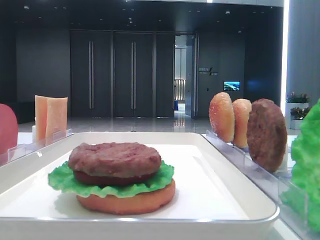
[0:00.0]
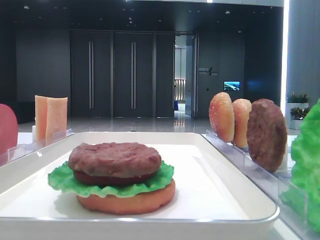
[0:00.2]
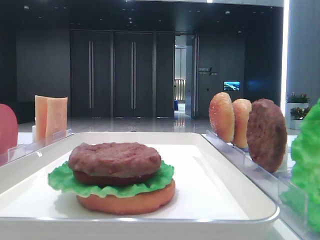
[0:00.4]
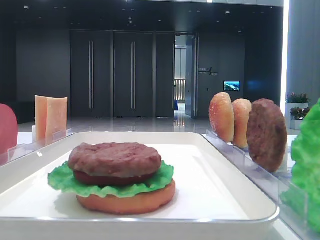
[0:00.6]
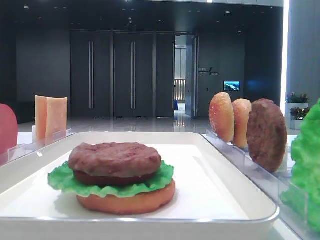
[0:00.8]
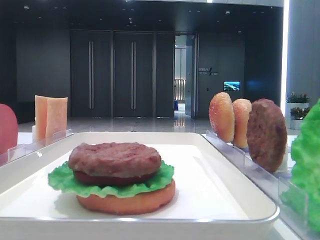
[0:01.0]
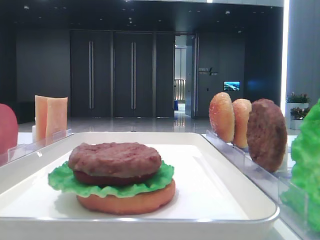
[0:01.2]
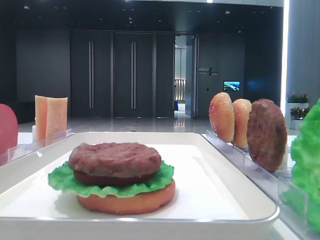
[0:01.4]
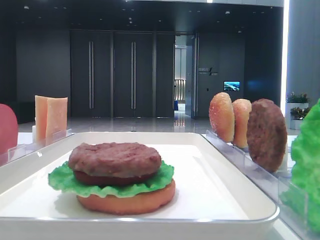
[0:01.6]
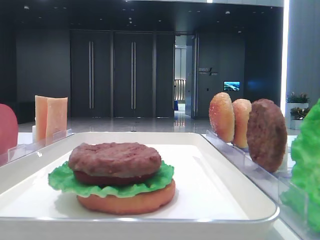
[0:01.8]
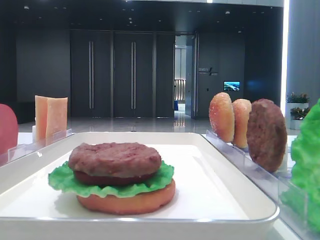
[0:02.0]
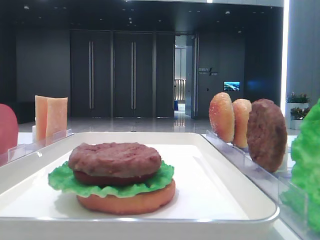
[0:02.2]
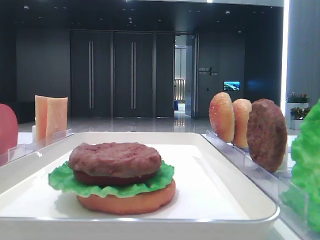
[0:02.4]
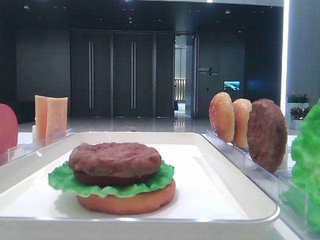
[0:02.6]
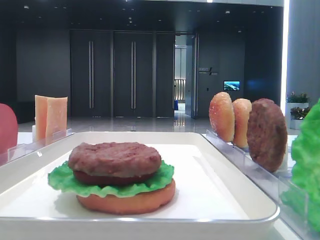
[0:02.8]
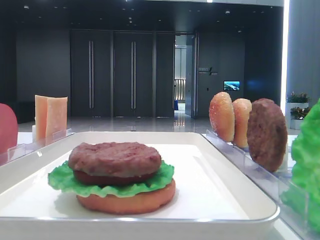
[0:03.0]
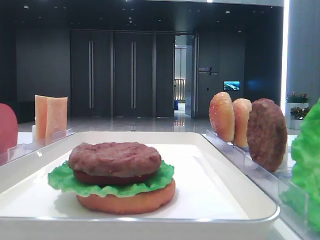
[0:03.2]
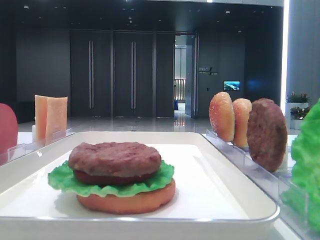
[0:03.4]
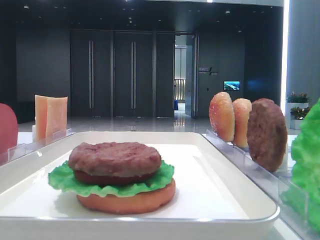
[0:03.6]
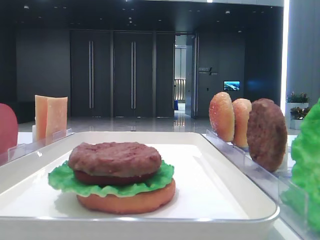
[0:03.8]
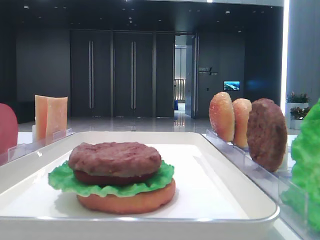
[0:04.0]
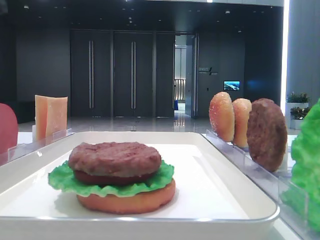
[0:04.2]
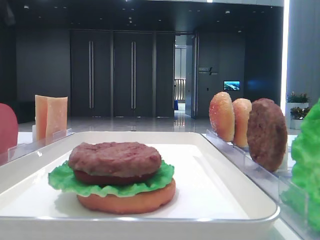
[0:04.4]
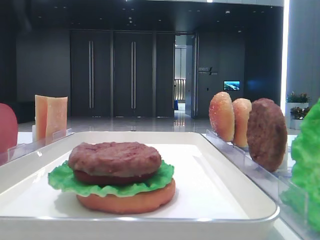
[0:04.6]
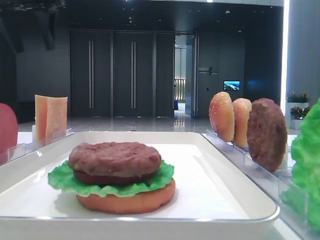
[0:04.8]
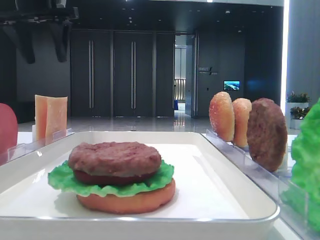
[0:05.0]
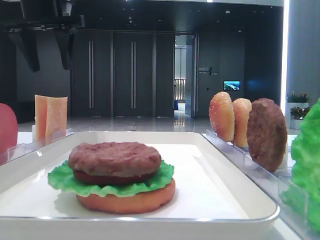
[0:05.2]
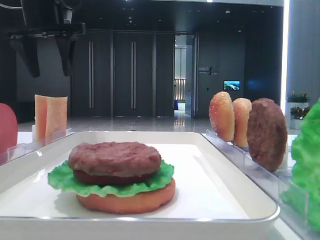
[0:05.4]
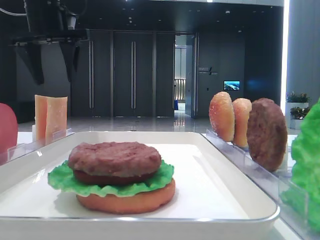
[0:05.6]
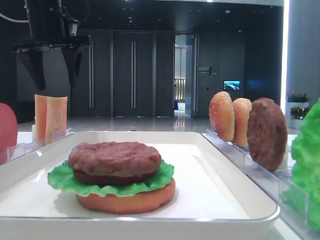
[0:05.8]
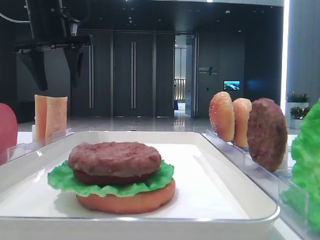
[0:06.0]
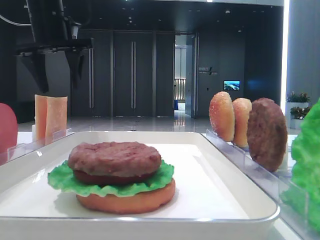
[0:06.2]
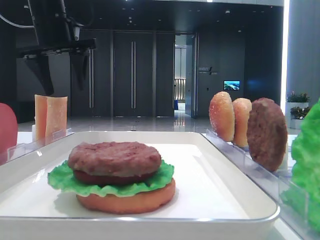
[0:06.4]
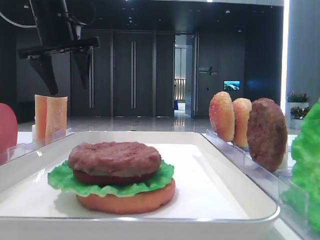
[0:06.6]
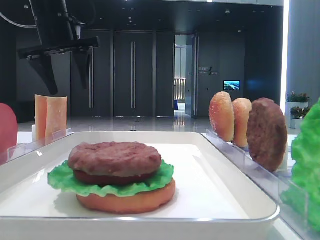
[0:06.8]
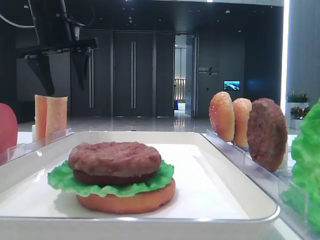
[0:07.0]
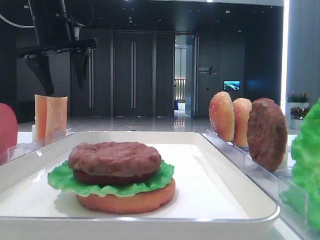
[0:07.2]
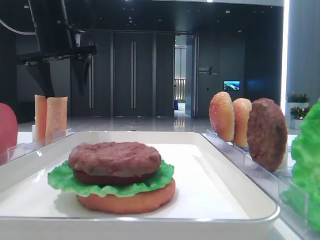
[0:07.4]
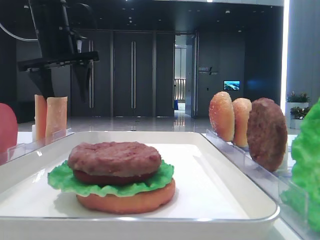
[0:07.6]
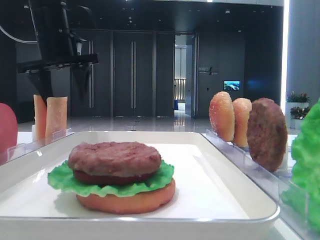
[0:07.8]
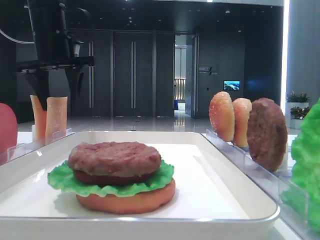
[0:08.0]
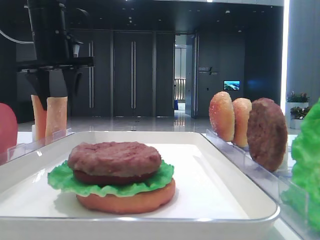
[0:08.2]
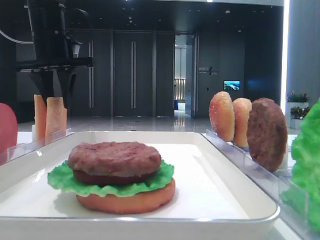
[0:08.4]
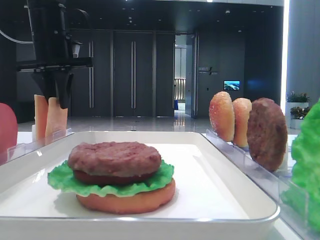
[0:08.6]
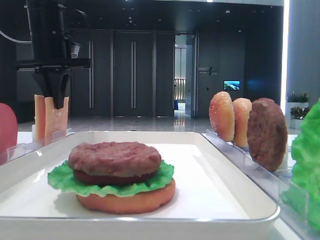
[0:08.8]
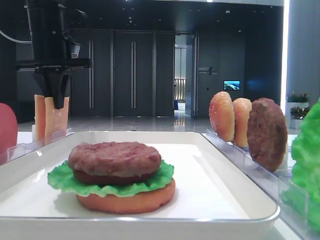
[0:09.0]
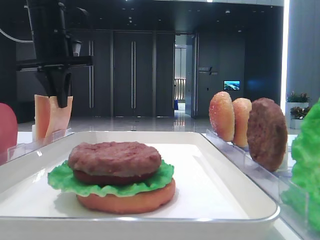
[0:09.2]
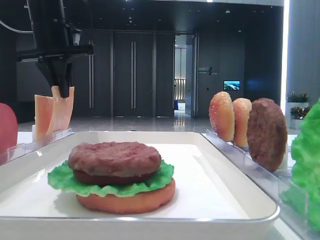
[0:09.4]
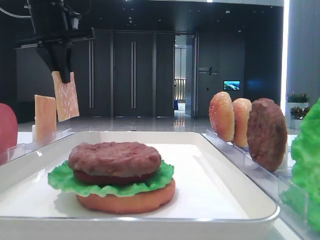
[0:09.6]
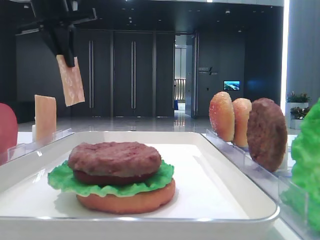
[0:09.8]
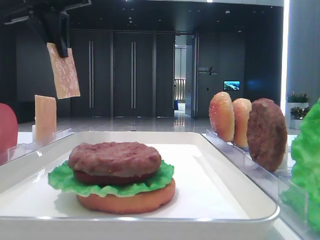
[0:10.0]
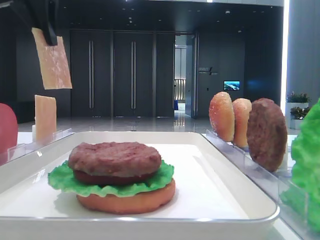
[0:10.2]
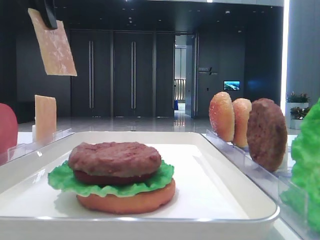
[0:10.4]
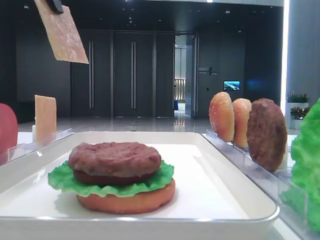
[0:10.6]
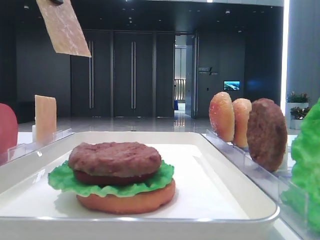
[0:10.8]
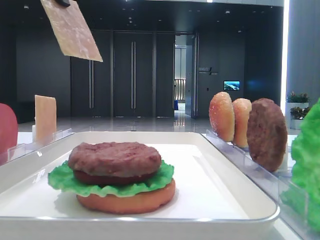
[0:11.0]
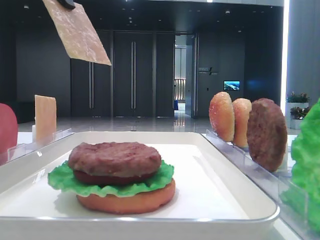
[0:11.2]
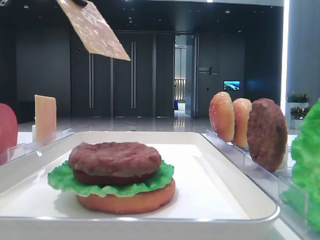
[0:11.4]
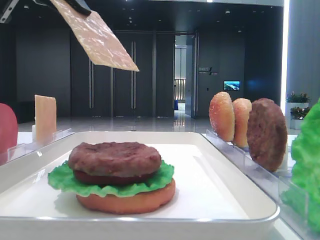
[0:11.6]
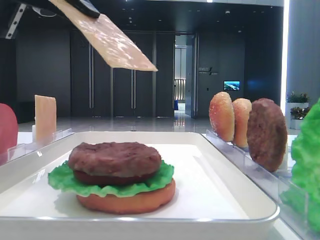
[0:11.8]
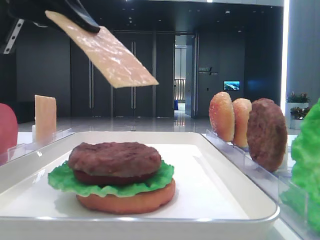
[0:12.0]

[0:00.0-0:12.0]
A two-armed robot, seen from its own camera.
Step, 0:00.0 to 0:08.8: Pick up the cheese slice with the left hand.
0:04.4 to 0:06.0: The left gripper goes approximately 15 cm to the right and downward.
0:06.0 to 0:07.6: The grippers move only a little.
0:07.6 to 0:09.0: The left gripper closes its fingers.
0:09.0 to 0:10.4: The left gripper shifts about 15 cm backward and upward.
0:10.4 to 0:12.0: The left gripper travels backward and downward by some 15 cm.

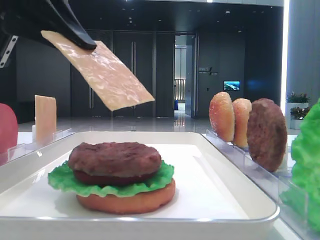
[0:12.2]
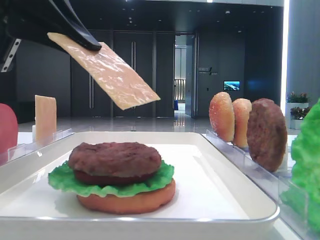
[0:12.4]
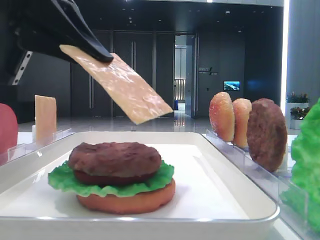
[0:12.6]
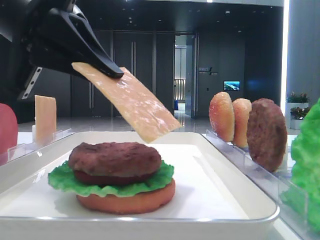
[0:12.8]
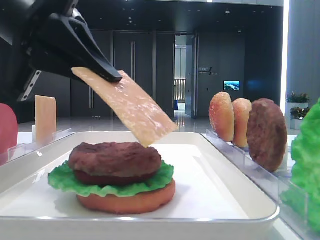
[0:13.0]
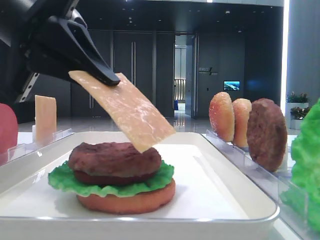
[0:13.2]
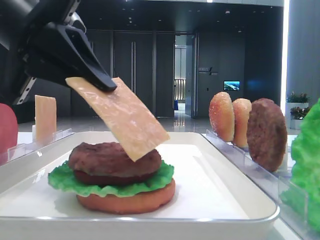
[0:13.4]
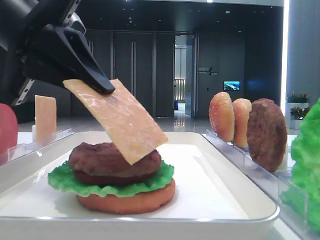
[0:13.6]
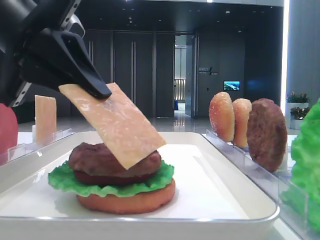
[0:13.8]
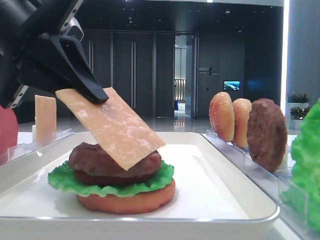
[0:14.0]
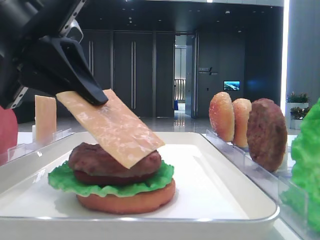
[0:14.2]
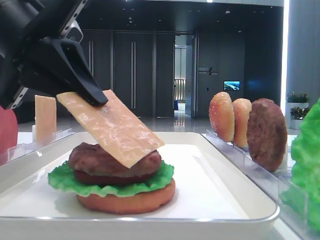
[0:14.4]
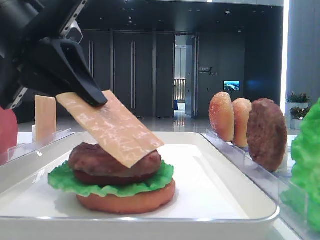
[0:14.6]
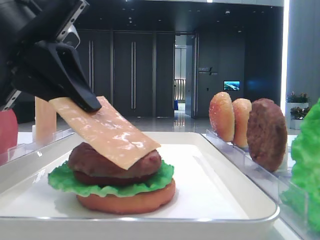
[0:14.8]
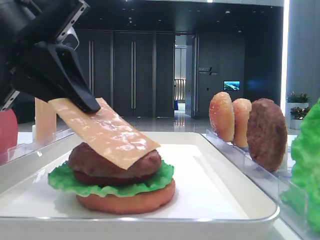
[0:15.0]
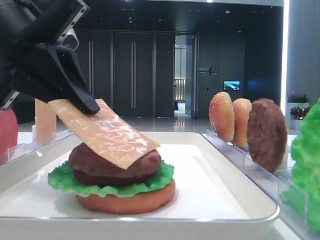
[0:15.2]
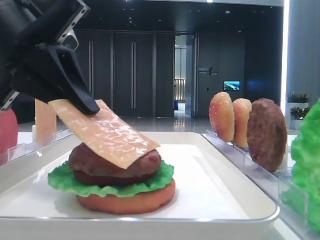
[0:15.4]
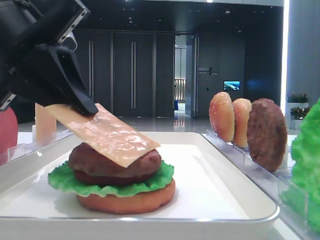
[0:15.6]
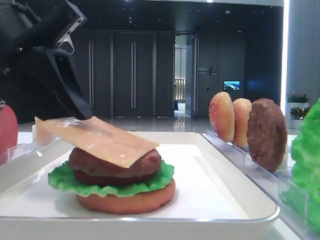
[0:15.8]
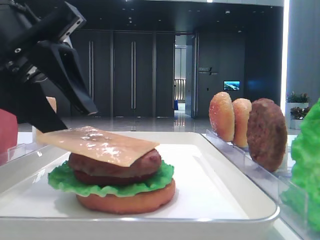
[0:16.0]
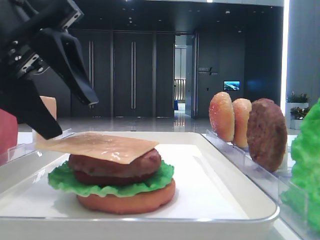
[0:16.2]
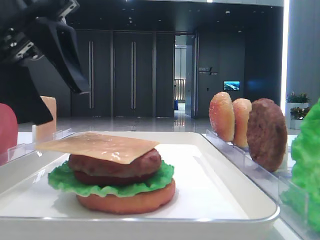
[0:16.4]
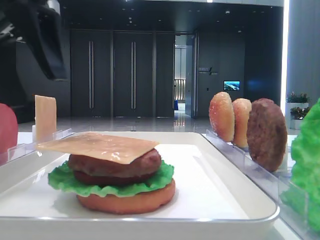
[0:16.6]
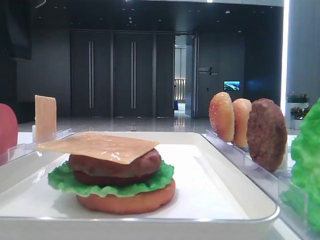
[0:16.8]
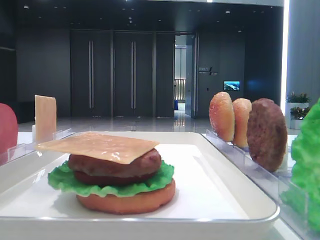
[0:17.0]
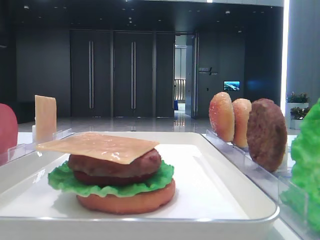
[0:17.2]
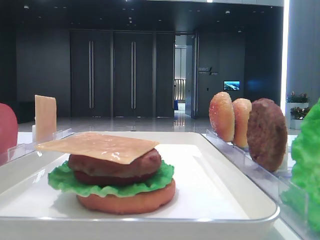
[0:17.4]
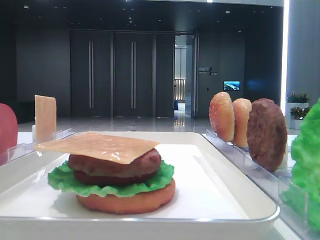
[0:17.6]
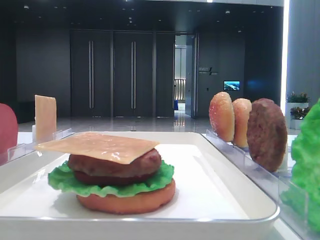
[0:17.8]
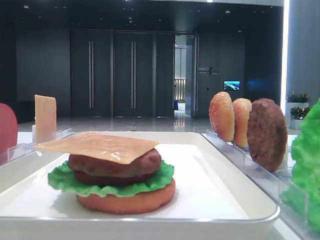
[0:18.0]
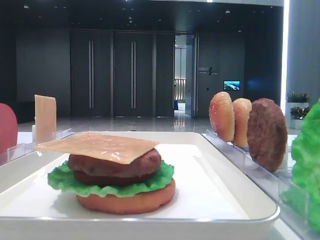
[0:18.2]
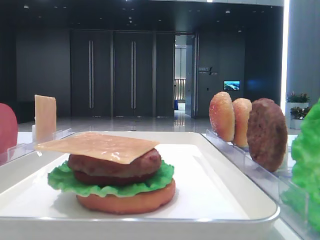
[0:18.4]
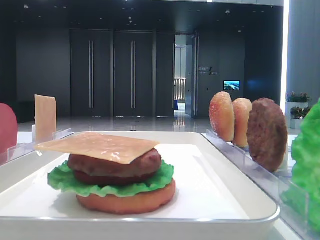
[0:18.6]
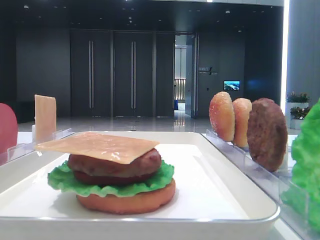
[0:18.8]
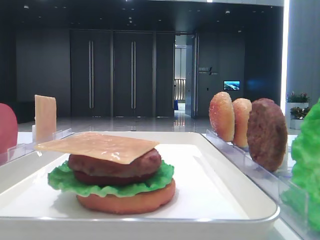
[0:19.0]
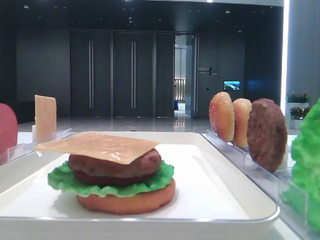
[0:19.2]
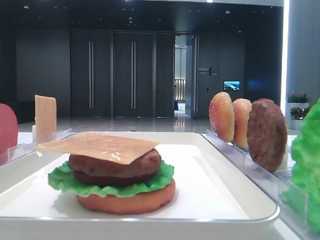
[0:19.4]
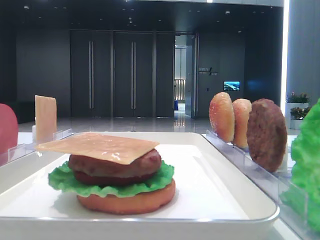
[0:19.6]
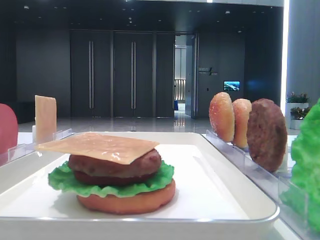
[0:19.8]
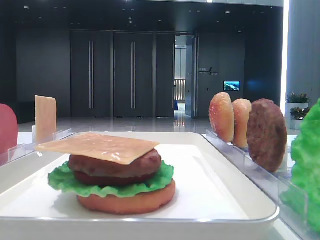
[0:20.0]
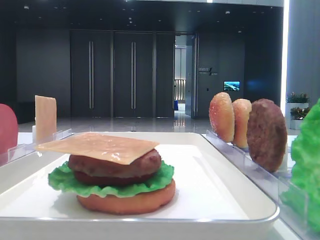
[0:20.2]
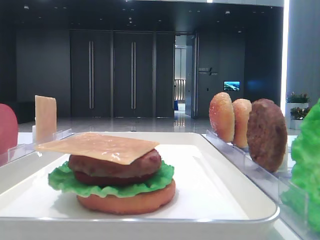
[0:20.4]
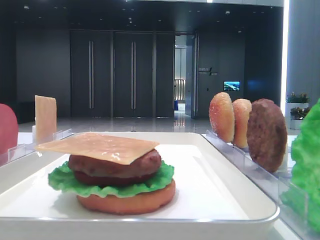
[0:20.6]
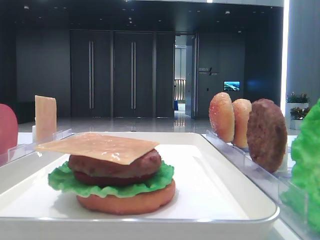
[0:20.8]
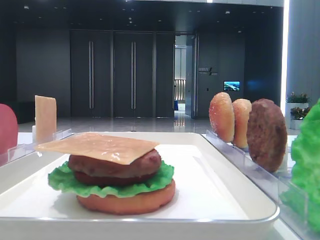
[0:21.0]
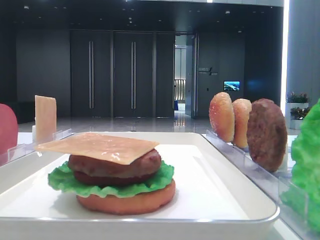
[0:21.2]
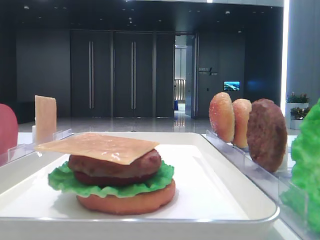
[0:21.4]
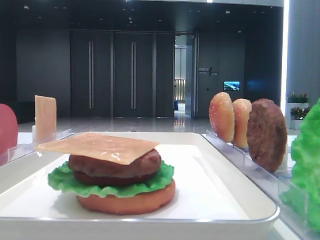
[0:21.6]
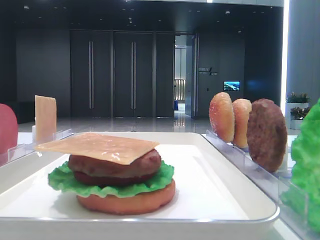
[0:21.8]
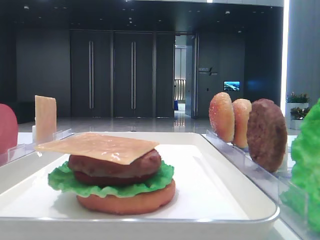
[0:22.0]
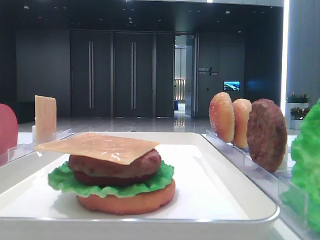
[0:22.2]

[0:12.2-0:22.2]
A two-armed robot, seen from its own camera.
Step, 0:12.2 to 0:16.2: Place the cheese slice on the patty with the left hand.
0:12.2 to 0:15.0: The grippers make only small movements.
0:15.0 to 0:16.4: The left gripper opens.
0:16.4 to 0:18.0: The left gripper moves to the left and upward, some 15 cm.

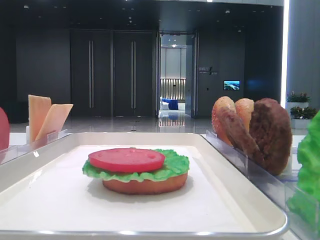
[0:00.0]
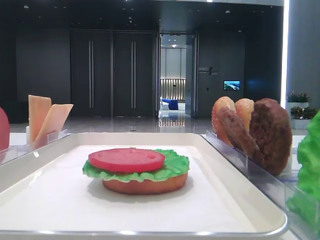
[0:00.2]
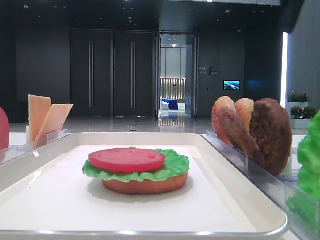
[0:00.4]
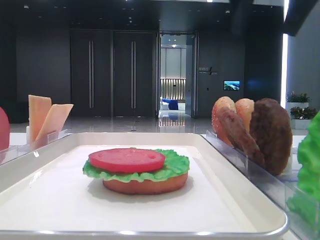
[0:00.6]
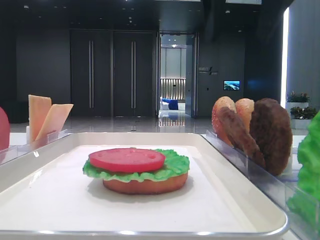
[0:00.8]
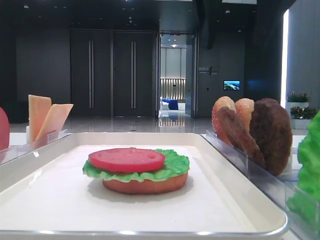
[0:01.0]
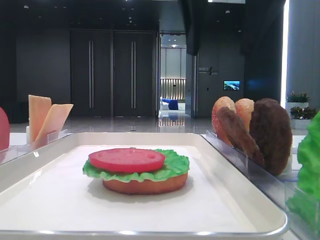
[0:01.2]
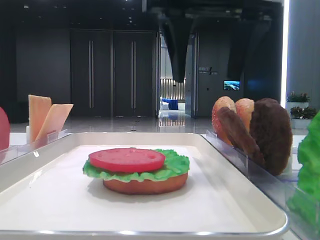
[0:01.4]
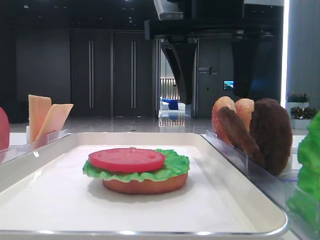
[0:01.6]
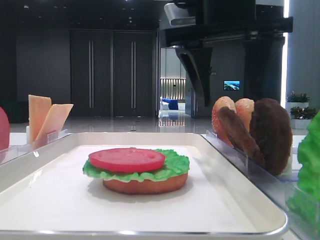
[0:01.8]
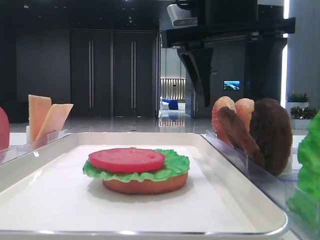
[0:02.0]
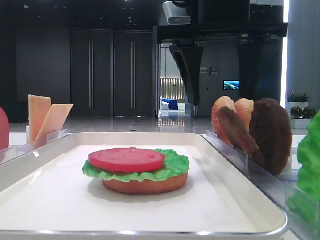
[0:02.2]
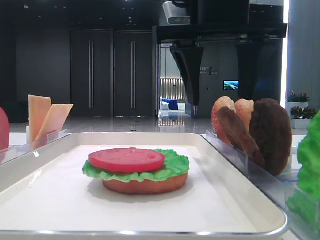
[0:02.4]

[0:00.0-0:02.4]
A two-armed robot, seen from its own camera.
0:00.0 to 0:01.2: The right gripper moves to the left, approximately 25 cm.
0:01.2 to 0:02.4: The right gripper travels downward by some 5 cm.
